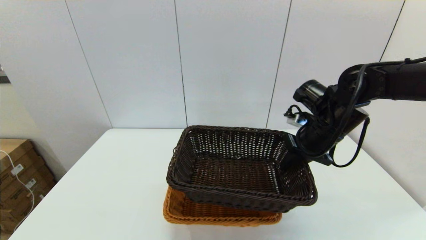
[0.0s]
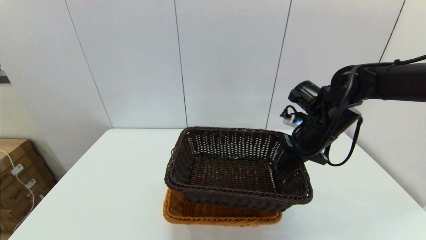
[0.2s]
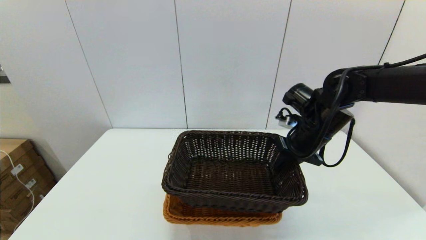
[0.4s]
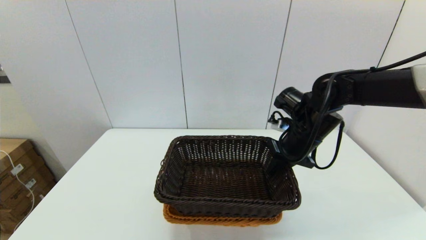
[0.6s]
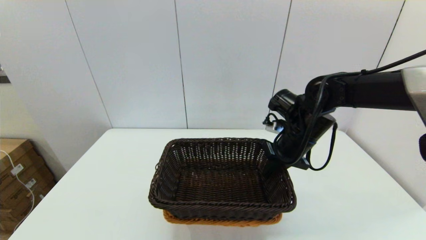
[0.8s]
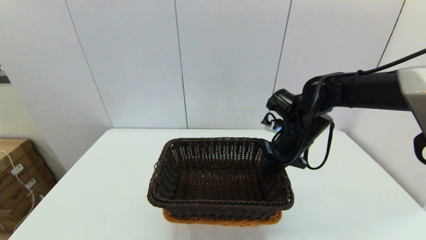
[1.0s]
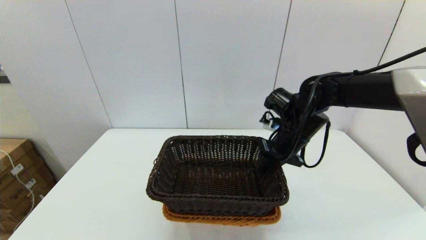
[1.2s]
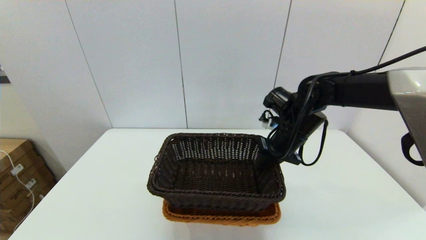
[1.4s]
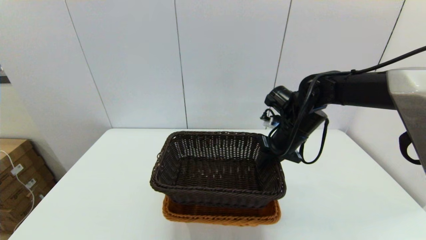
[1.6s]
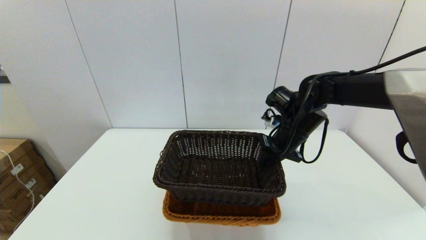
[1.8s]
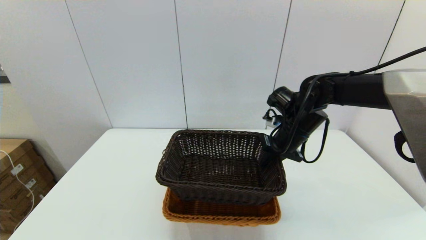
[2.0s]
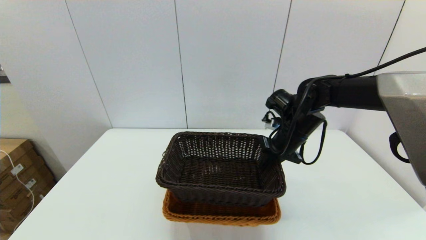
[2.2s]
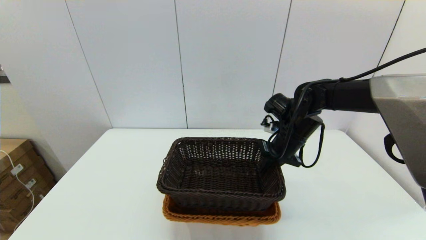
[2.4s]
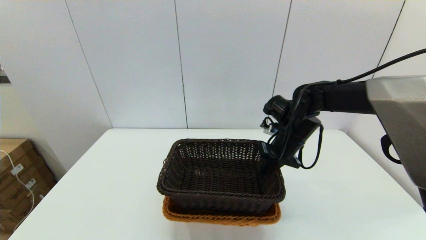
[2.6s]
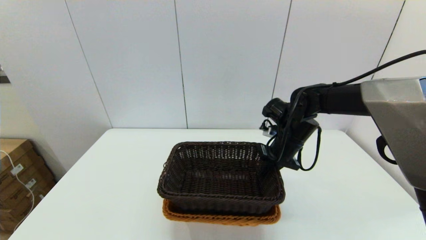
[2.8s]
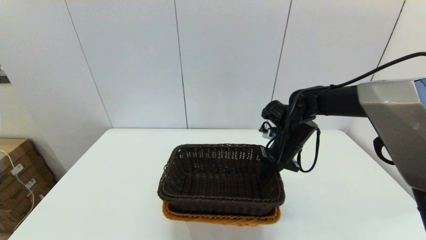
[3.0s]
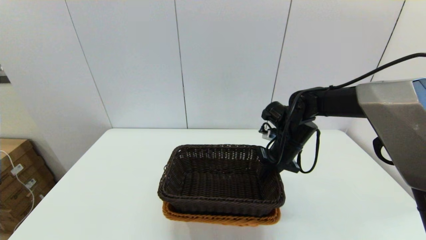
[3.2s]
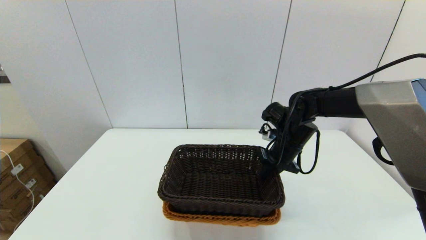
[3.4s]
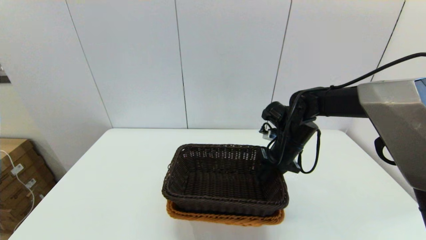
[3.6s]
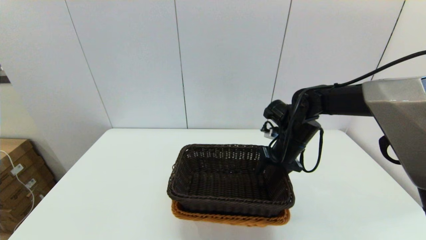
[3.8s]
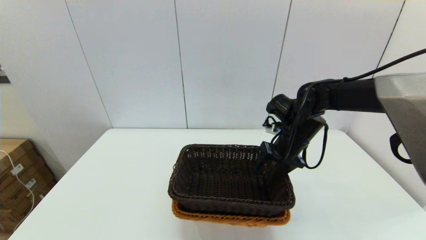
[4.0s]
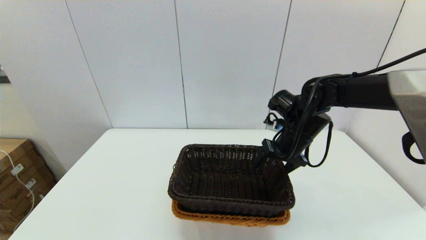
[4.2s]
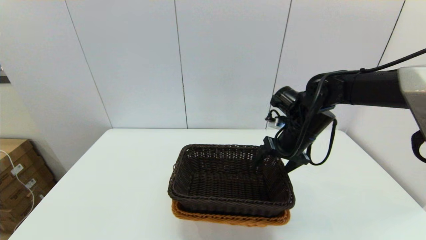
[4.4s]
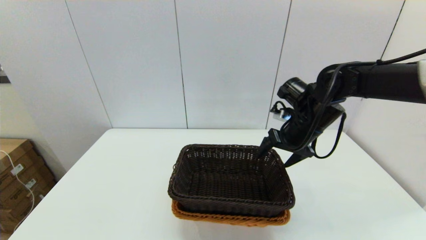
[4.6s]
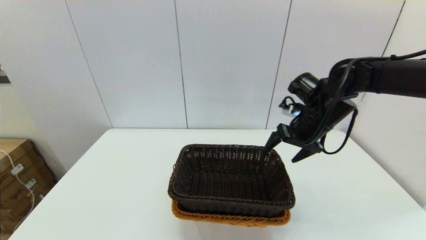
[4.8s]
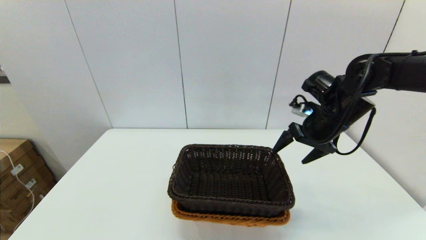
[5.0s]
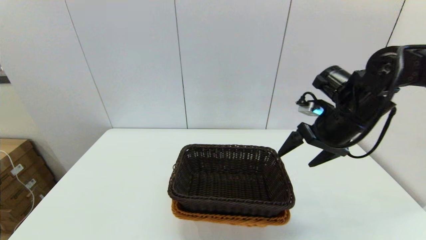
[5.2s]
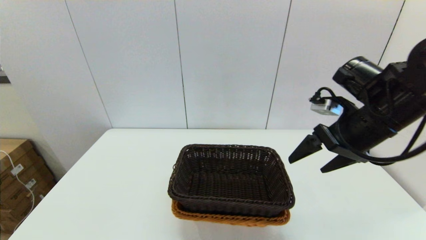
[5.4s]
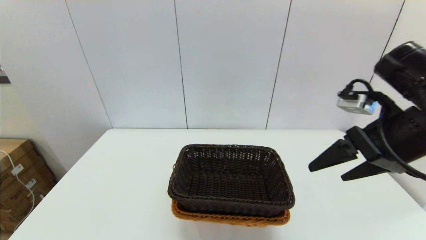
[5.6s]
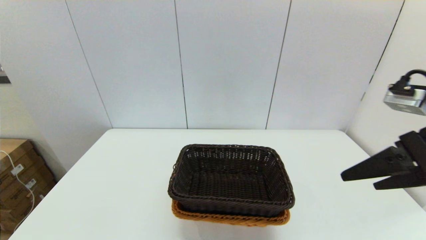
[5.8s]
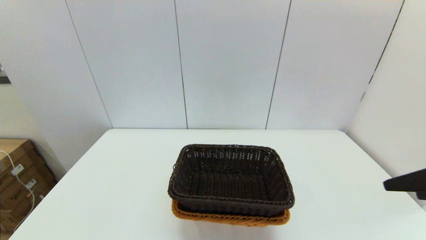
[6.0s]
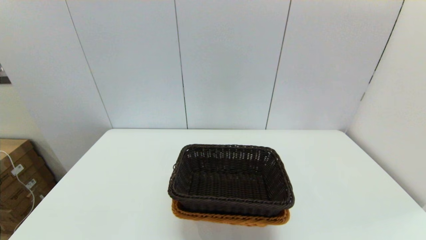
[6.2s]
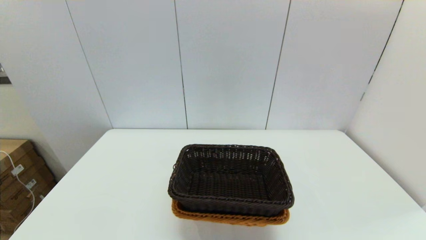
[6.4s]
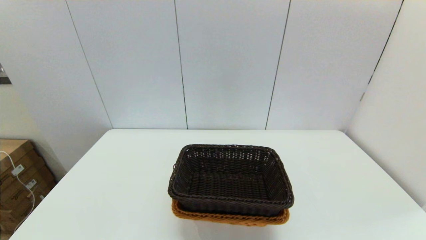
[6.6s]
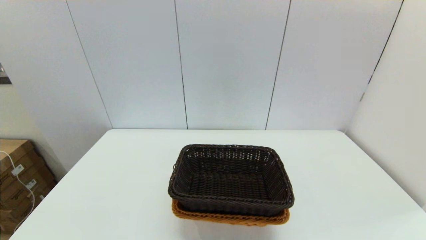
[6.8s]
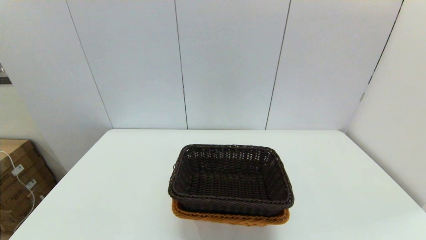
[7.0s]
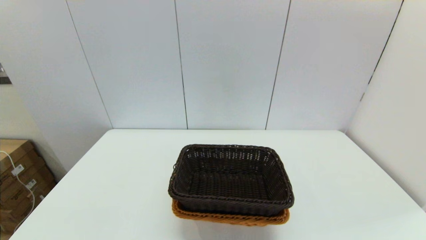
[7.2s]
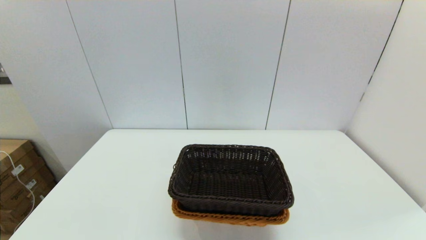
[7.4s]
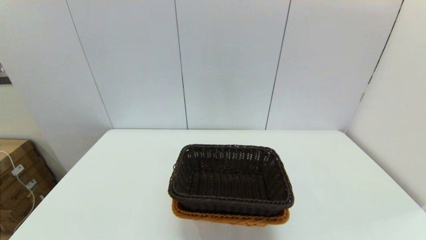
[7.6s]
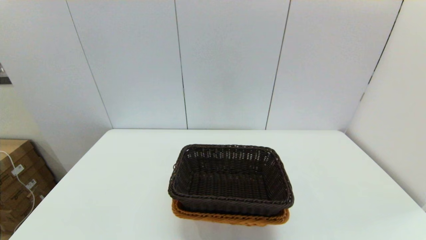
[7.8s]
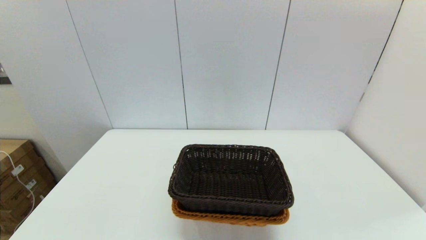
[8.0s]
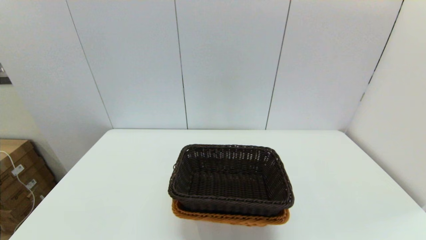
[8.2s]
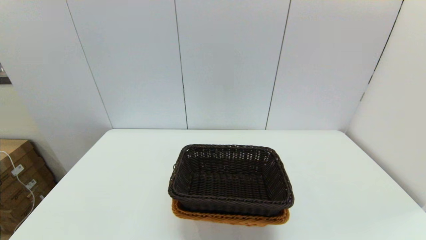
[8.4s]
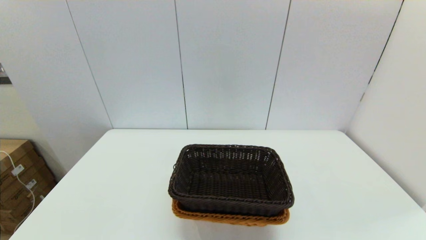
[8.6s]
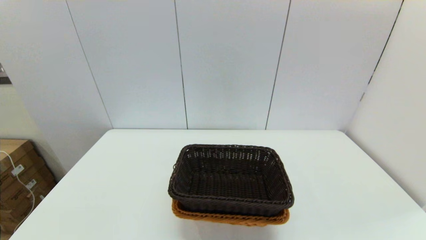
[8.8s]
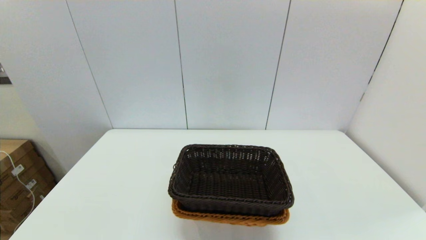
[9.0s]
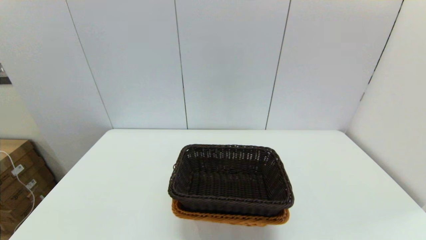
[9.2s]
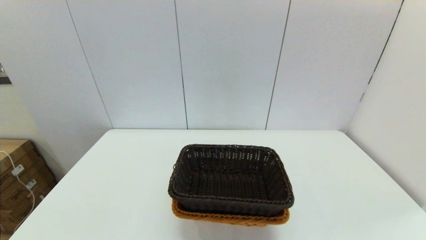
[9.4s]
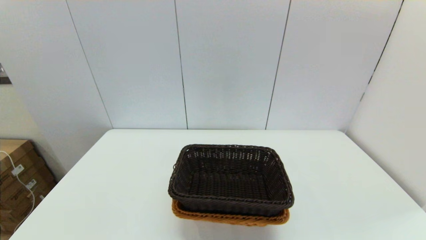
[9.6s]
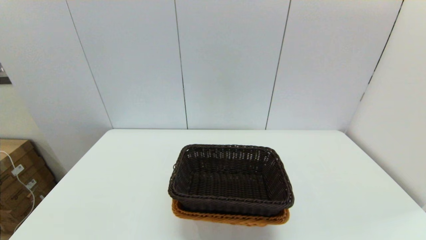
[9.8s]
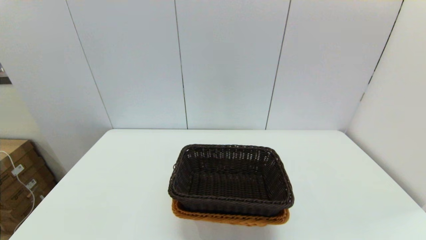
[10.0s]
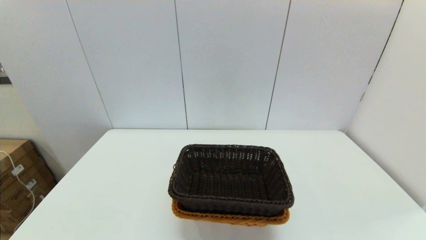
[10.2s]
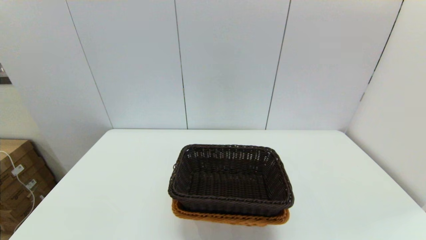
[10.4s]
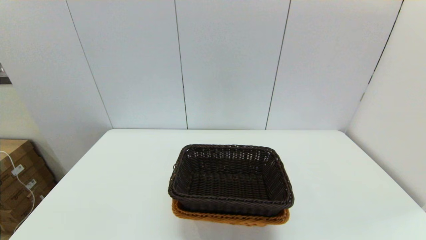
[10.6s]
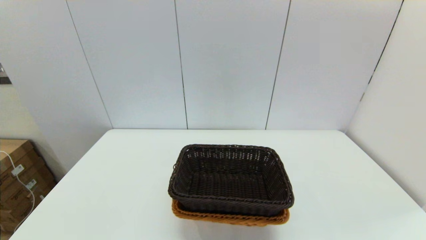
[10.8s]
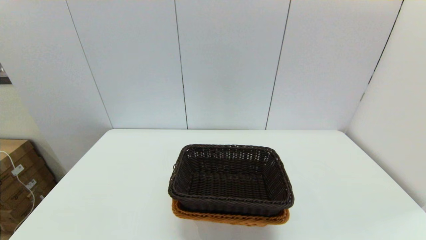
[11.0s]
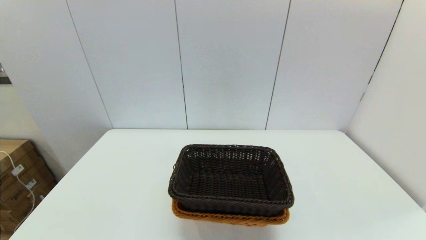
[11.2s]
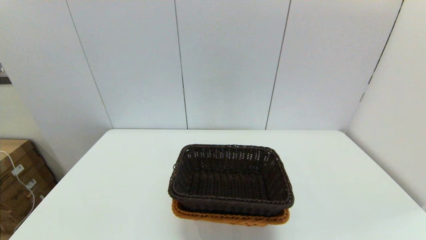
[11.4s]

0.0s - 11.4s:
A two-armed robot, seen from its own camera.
Task of the whole recording: stack a basket on top of another basket.
Step, 0.0s - 4.4s: Place the dark basket into the light color basket with the right gripper.
0.0s - 1.4s: The right gripper shifts by approximately 5 cm.
1.4s - 2.8s: The grippers make only small movements.
2.8s - 4.2s: The right gripper opens up.
4.2s - 5.6s: The right gripper goes some 20 cm backward, upward and to the right.
5.6s - 7.2s: The right gripper heads backward, covering about 30 cm.
8.6s - 11.4s: Both grippers stay put.

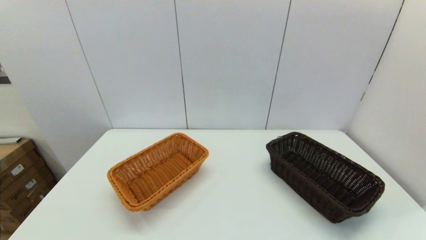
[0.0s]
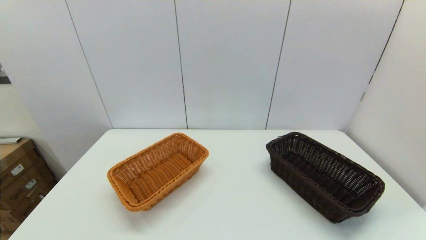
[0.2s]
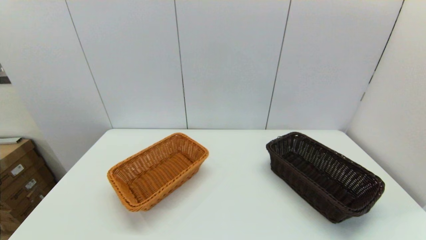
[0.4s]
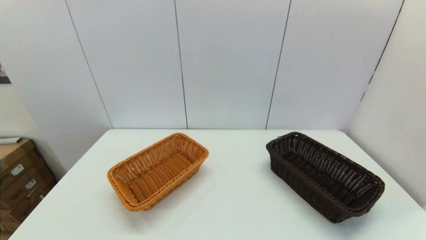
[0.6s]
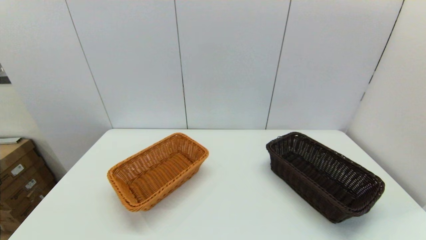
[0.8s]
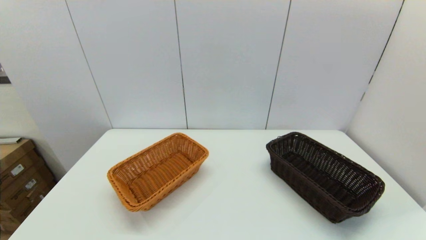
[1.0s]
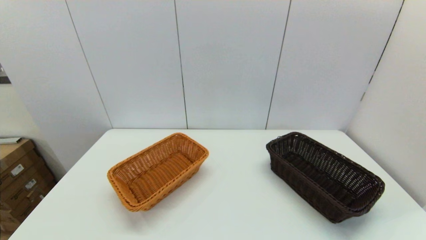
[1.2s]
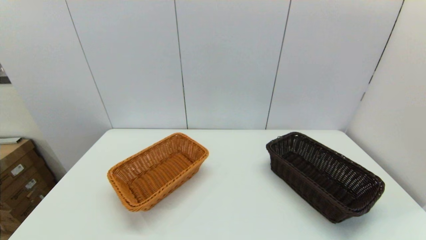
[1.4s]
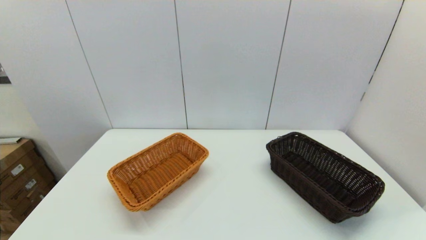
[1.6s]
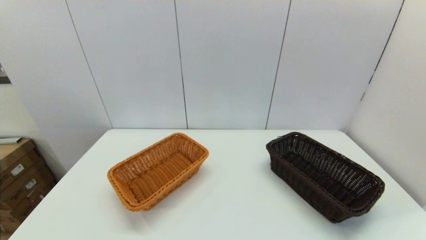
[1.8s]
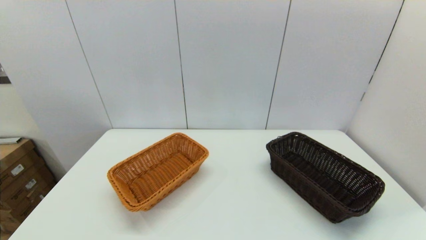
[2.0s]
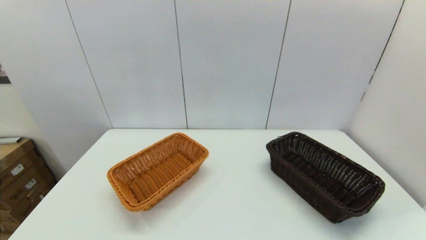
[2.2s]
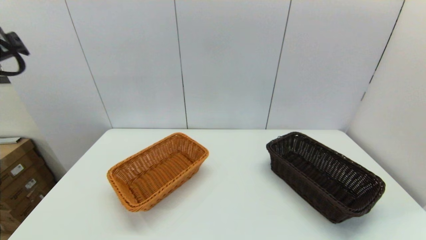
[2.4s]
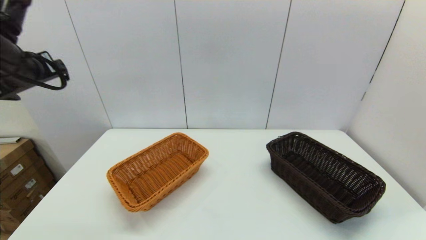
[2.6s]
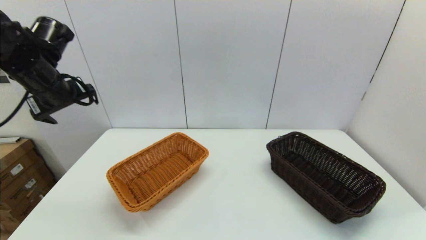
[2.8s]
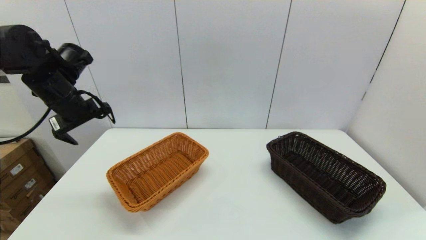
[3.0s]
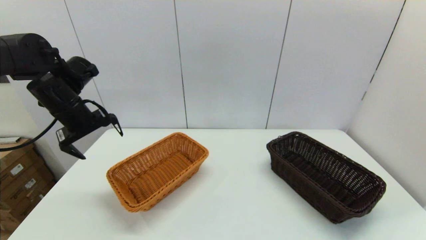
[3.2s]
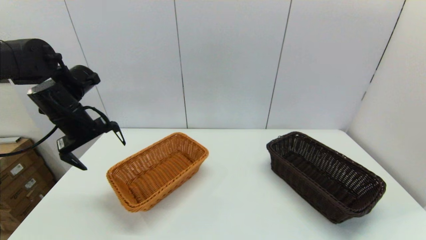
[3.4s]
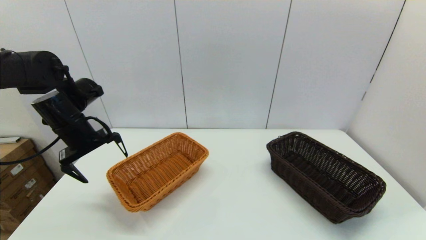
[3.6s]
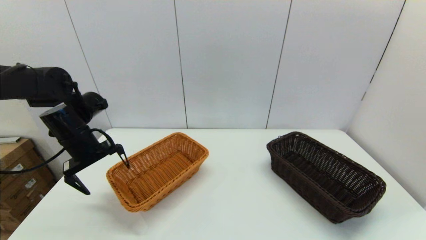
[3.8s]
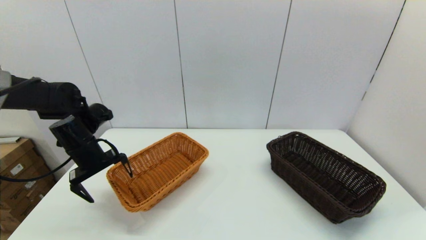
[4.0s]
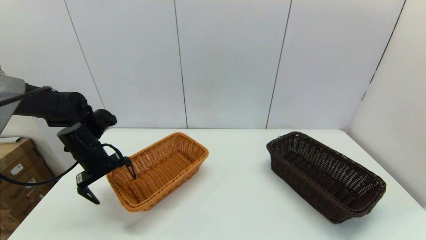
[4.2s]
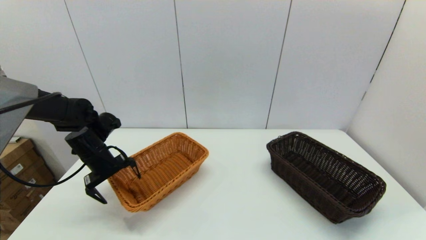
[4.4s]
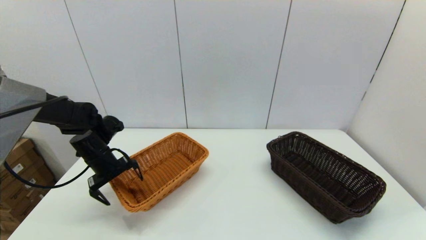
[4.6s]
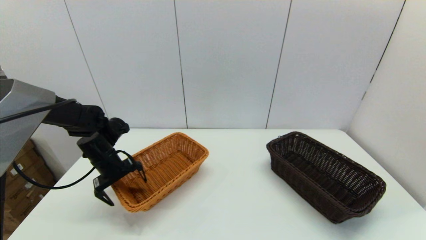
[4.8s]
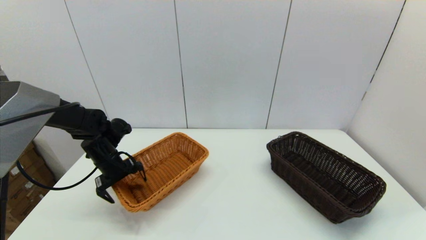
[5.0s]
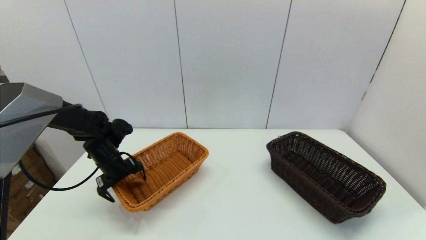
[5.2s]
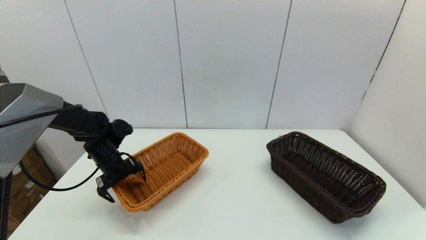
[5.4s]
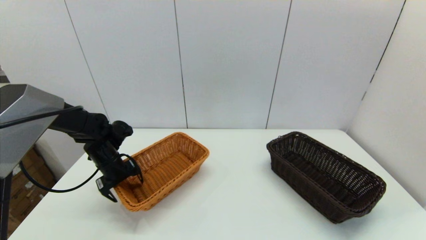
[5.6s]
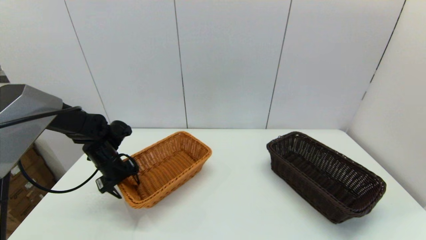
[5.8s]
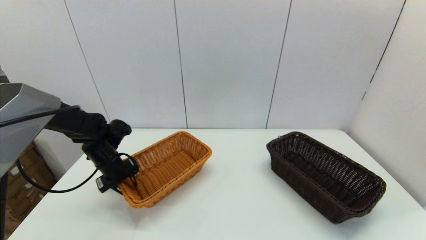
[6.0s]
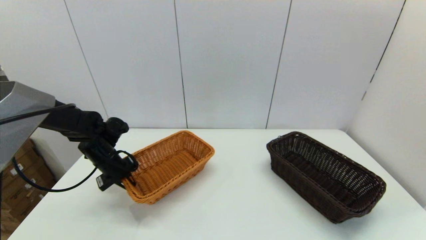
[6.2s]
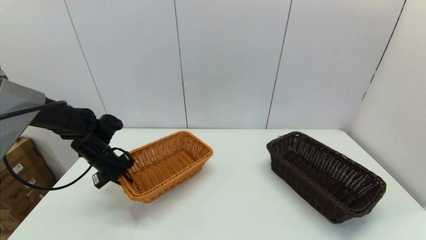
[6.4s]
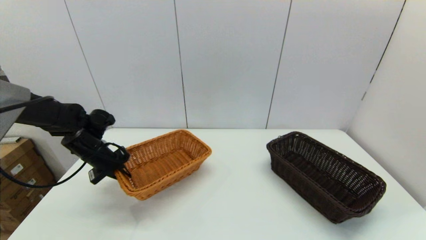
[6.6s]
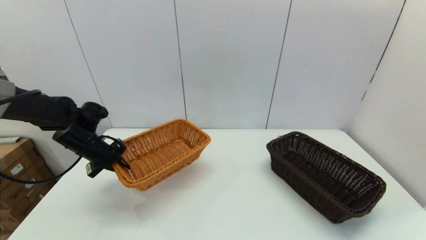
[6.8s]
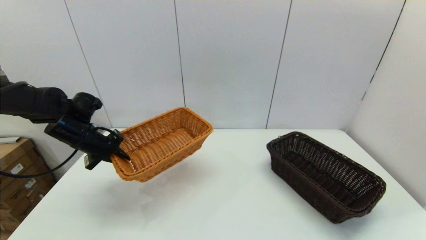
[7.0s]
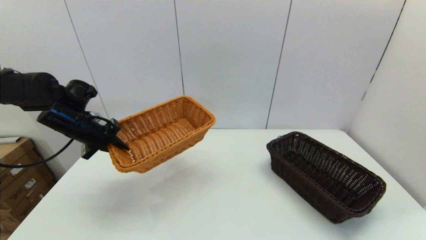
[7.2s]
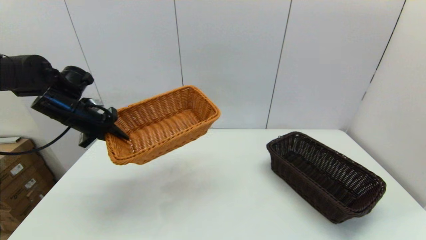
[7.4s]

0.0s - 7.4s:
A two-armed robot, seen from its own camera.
Task of the whole recording: stack a basket on top of another basket.
Step, 2.4s - 6.2s: Grasp the light basket with the left gripper.
1.4s - 3.0s: The left gripper moves forward, roughly 35 cm.
3.0s - 4.4s: The left gripper shifts roughly 15 cm downward.
4.4s - 6.0s: The left gripper closes.
6.0s - 7.4s: The left gripper moves upward, approximately 15 cm.
